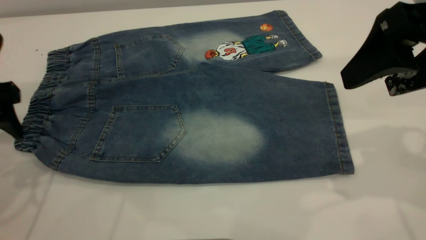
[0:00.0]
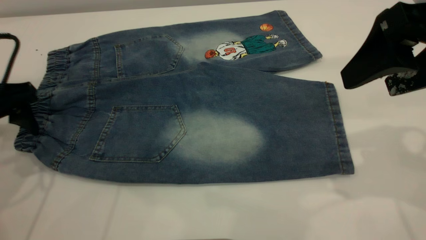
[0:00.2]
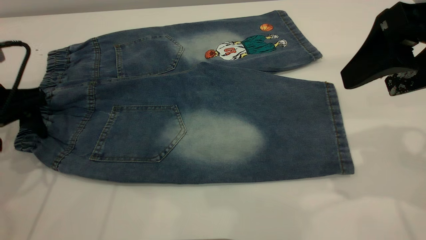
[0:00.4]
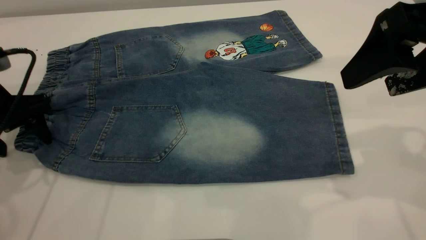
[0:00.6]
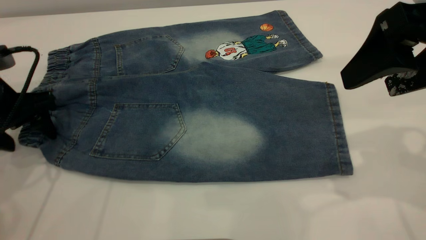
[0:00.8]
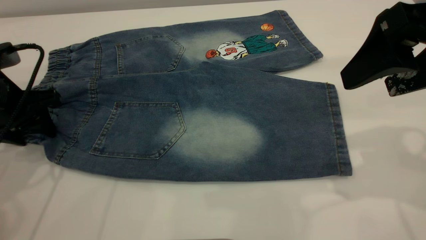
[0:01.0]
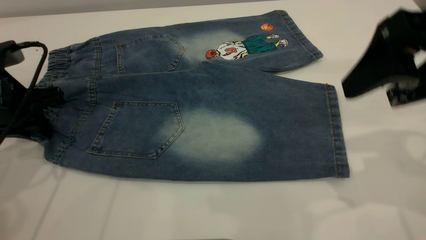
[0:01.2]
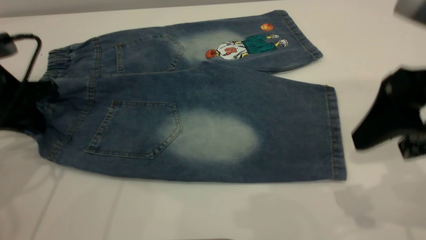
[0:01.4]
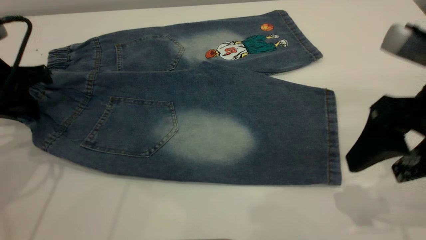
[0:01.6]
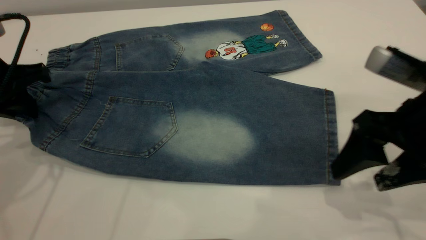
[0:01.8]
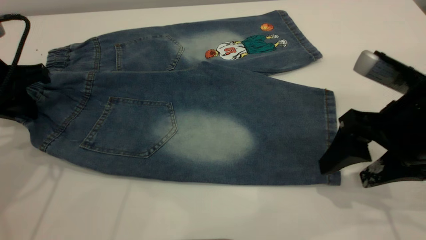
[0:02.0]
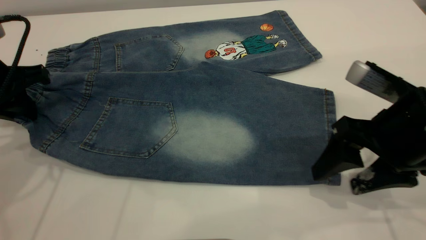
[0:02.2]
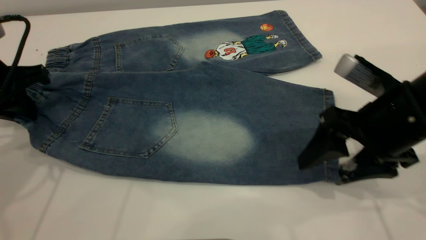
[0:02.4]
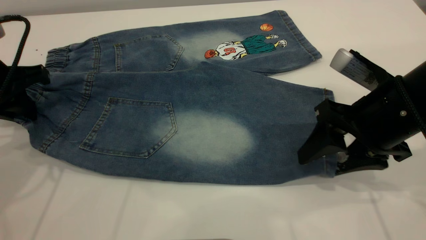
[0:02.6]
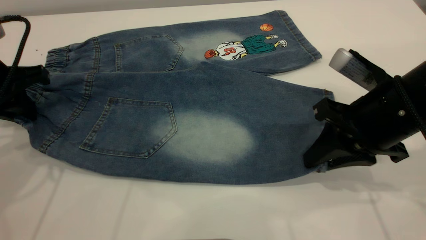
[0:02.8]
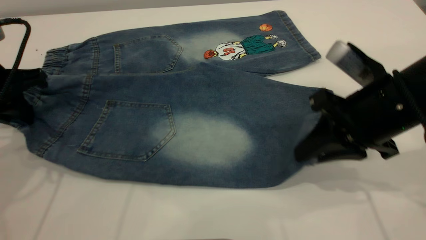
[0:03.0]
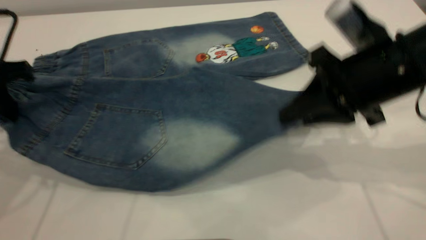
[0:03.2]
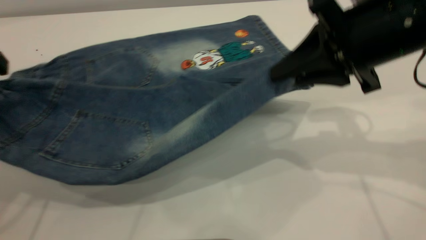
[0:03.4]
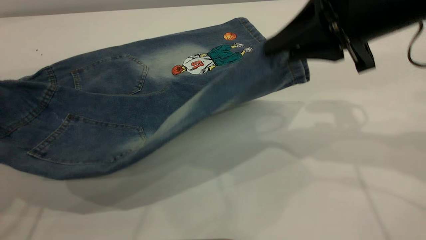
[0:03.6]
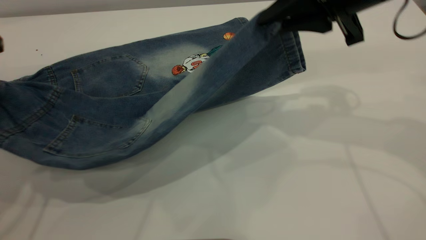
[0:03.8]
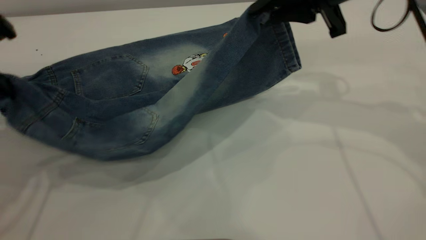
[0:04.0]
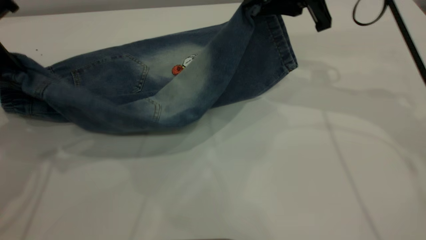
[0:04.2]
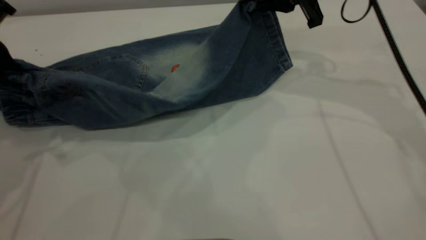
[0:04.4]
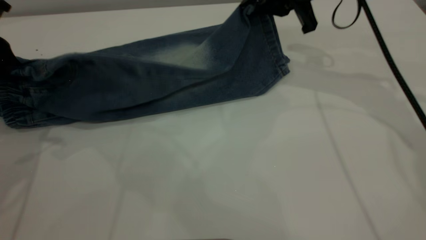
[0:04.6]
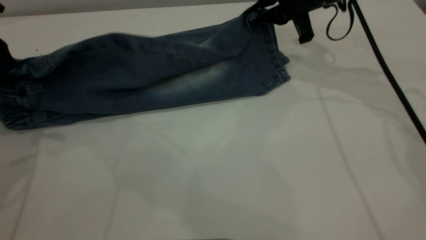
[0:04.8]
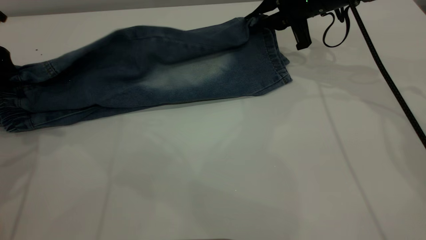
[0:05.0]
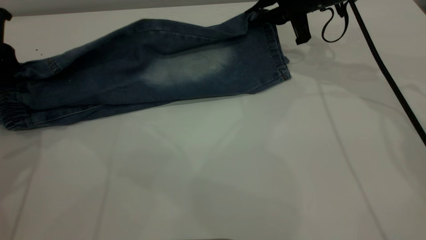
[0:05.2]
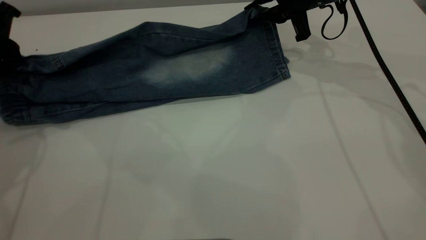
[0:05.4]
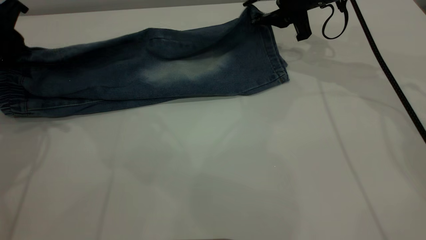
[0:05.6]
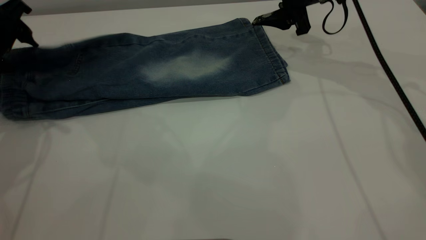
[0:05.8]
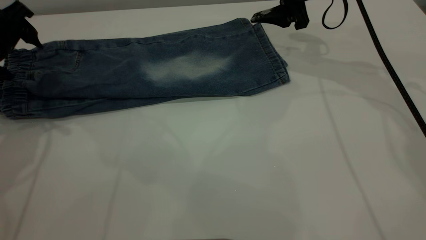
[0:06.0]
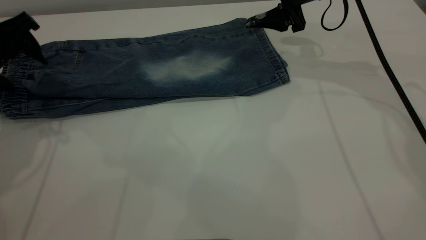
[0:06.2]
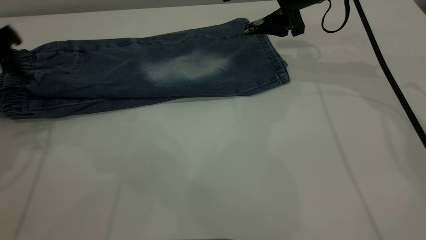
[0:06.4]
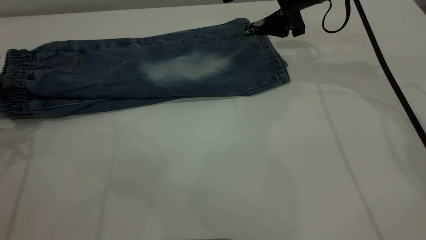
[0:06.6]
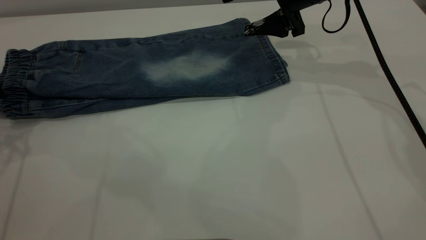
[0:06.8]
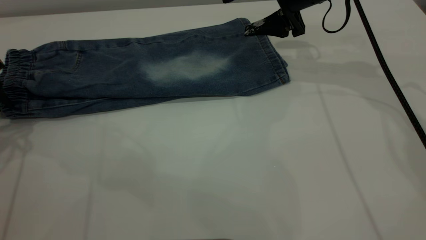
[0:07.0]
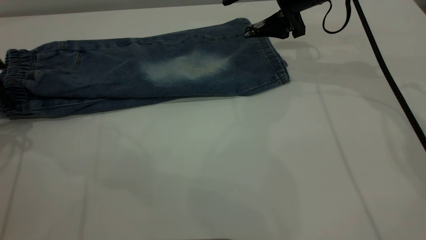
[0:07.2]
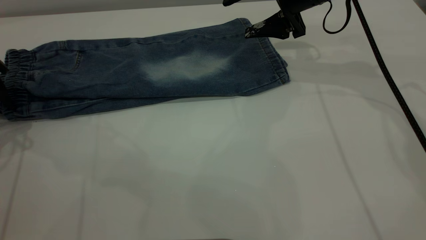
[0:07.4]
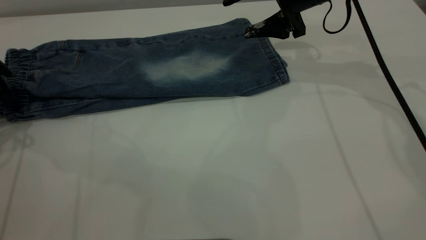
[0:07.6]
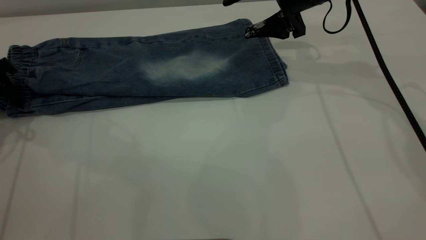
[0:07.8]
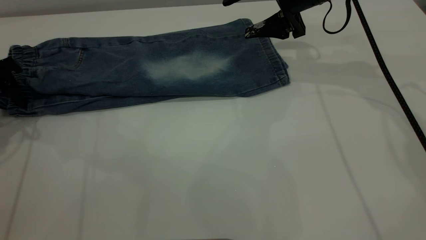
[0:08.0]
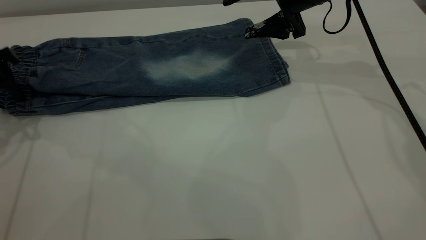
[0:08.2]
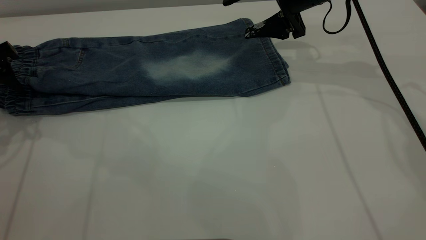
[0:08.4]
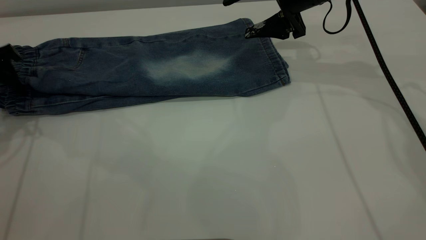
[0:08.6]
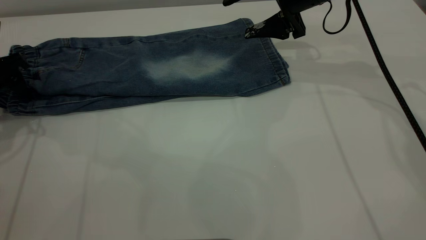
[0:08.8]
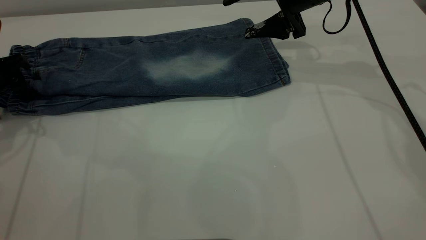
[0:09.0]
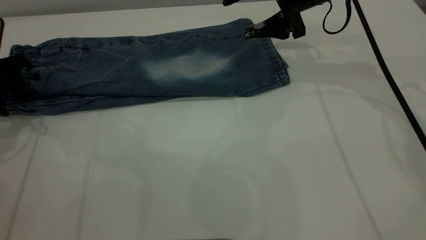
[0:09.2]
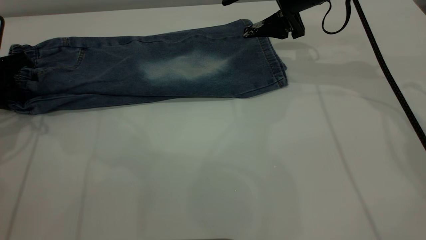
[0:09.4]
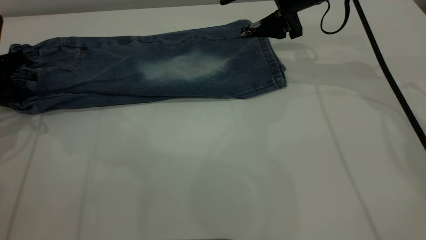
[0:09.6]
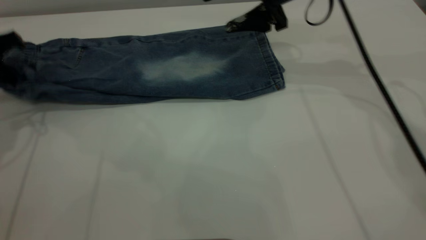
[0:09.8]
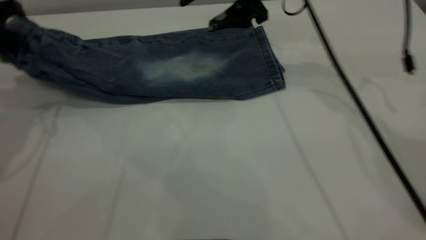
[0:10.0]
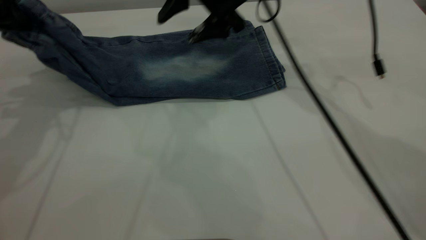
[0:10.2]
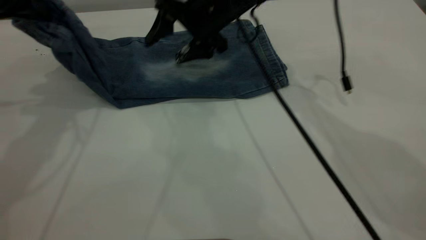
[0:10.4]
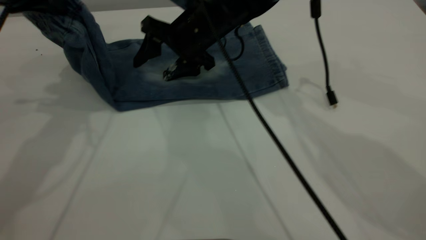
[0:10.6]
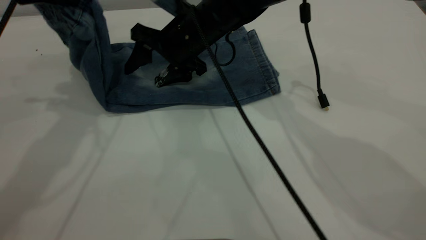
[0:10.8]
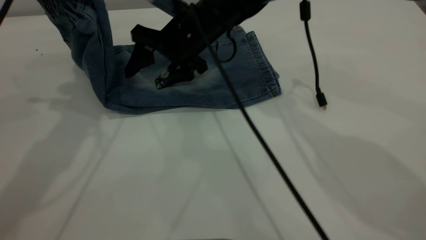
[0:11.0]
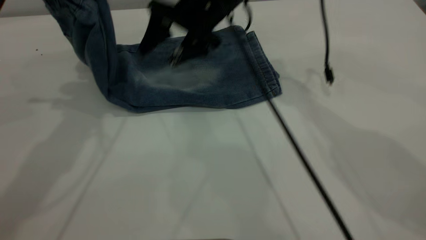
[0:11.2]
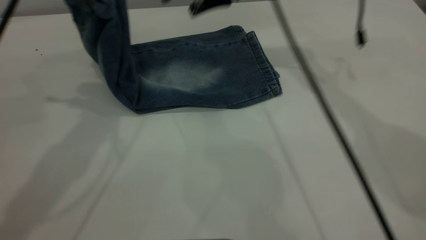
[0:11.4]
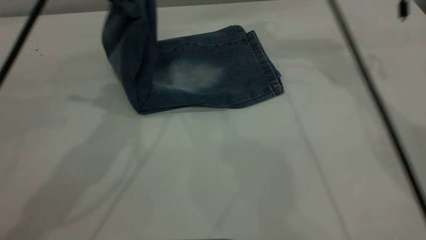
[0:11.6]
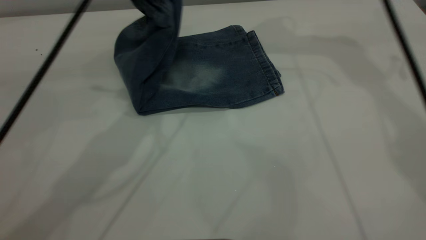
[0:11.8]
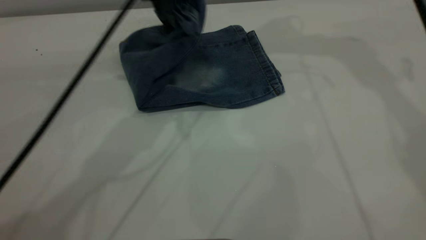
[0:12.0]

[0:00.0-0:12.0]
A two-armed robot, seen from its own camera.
Step, 0:00.0 to 0:07.0: Fold the bottom of the pants upward.
0:00.0 to 0:01.6: The right gripper heads downward, covering some 10 cm, while the left gripper closes its fingers.
0:01.6 to 0:03.0: The right gripper is displaced forward by some 5 cm, and closes up.
0:03.0 to 0:04.4: The right gripper travels forward and upward by some 20 cm.
0:04.4 to 0:06.0: The right gripper shifts approximately 5 cm forward, and opens. The left gripper changes place by some 5 cm, and opens up.
0:06.0 to 0:07.6: The left gripper is displaced to the left by approximately 5 cm.
0:07.6 to 0:09.0: The grippers move only a little.
0:09.0 to 0:10.4: The left gripper is displaced upward and to the right by approximately 15 cm, and closes its fingers. The right gripper moves to the left, approximately 15 cm.
0:10.4 to 0:12.0: The left gripper travels to the right by about 15 cm, while the right gripper shifts about 25 cm upward and to the right.

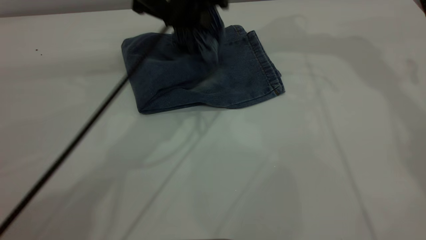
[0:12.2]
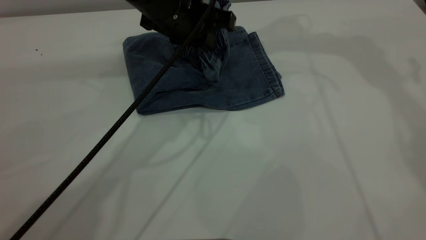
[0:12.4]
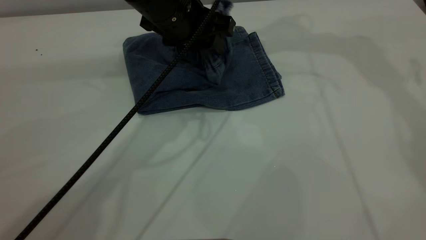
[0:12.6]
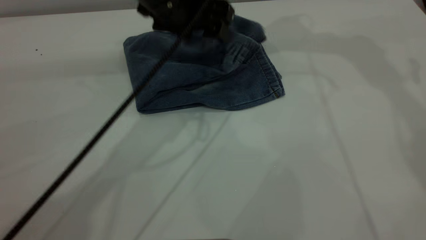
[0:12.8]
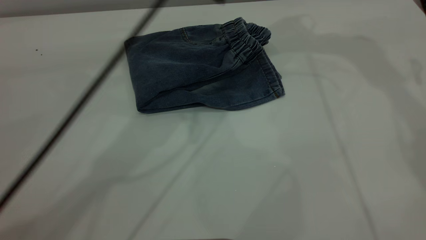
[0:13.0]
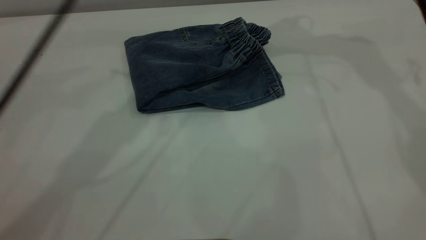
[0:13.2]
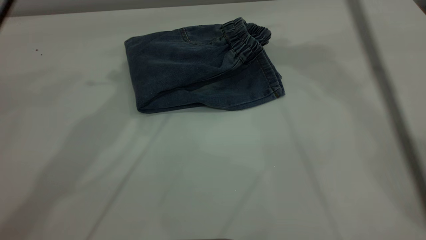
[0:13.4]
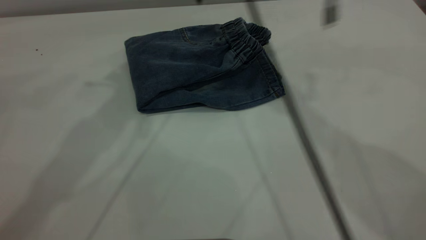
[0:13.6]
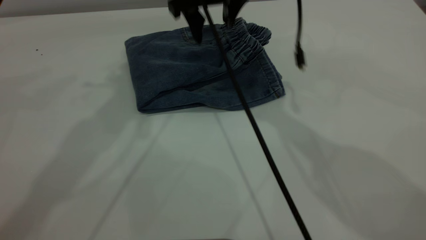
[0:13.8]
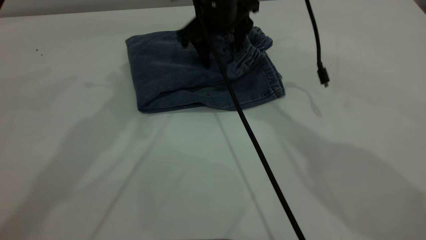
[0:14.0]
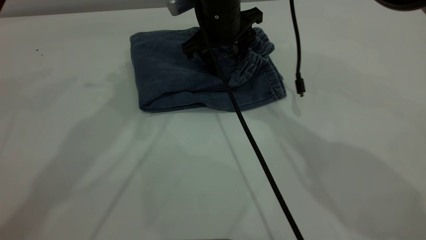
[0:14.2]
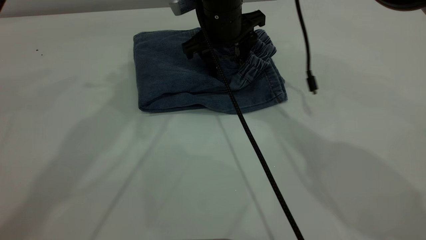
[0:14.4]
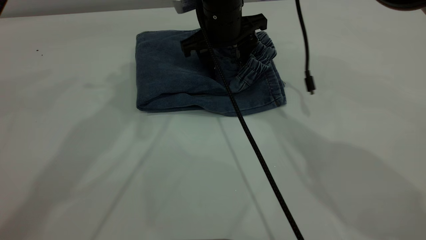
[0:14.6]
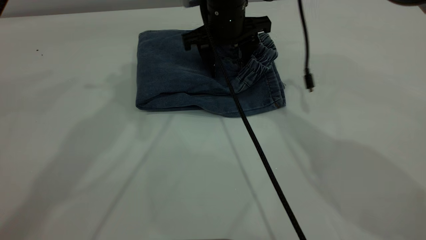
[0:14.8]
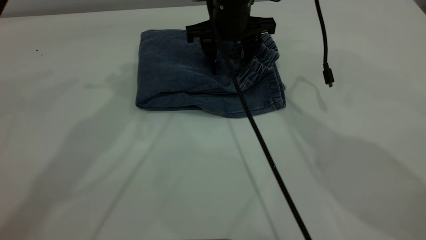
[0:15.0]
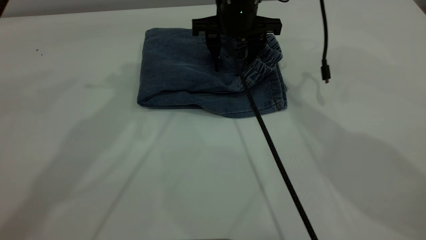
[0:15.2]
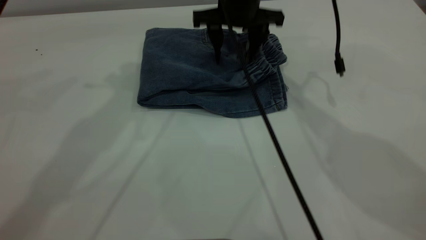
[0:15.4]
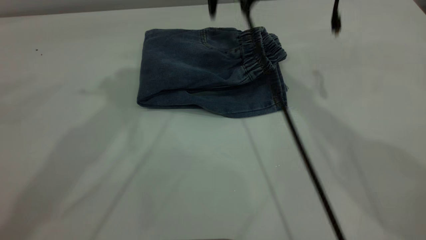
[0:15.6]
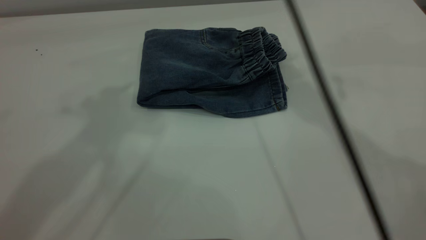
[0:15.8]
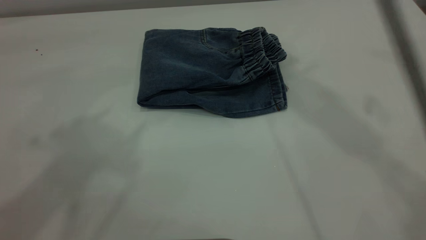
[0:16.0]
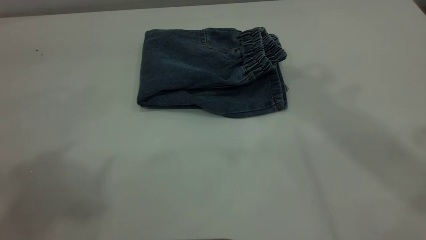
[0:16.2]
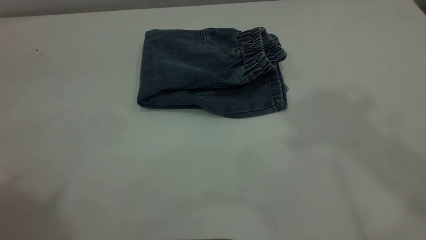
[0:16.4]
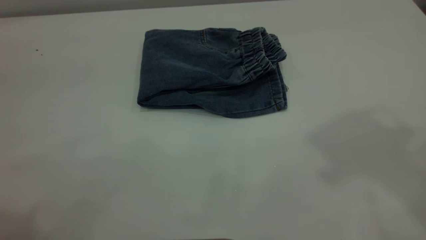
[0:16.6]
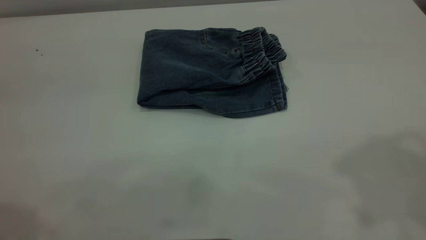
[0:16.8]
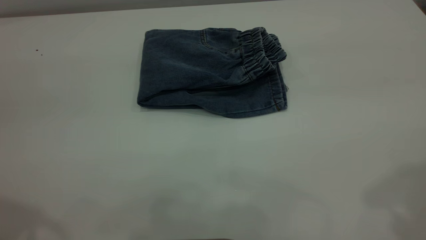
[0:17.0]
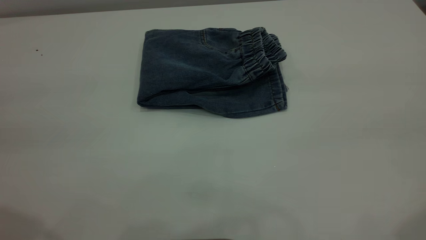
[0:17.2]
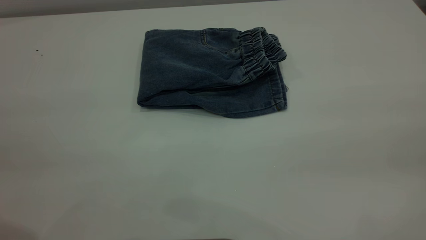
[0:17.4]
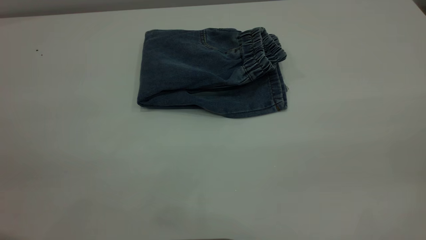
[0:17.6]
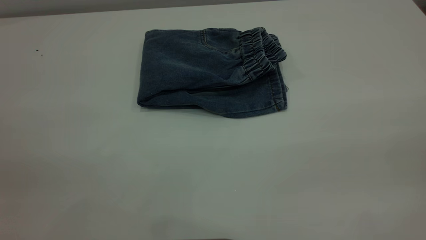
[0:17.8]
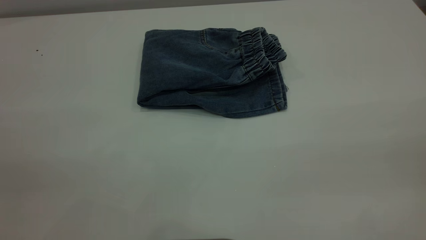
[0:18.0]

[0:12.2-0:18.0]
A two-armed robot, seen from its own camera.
0:12.2 to 0:13.6: The left gripper shifts approximately 20 cm upward and to the left, and opens up. Meanwhile the right gripper is displaced to the left and downward by about 20 cm.
0:13.6 to 0:15.0: The right gripper heads downward, covering about 10 cm.
0:15.0 to 0:16.6: The left gripper moves backward, upward and to the left, approximately 30 cm. The right gripper travels upward and backward by approximately 40 cm.
